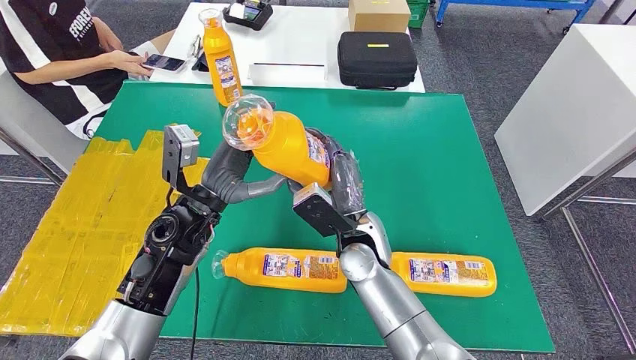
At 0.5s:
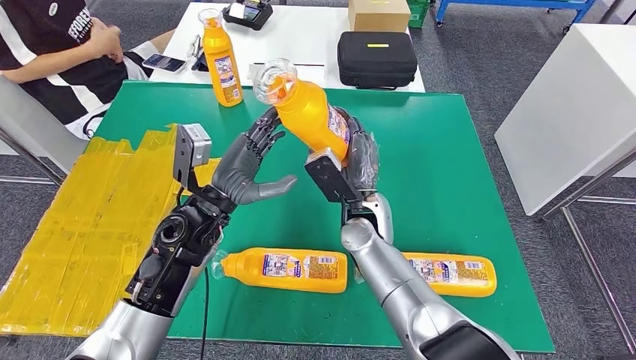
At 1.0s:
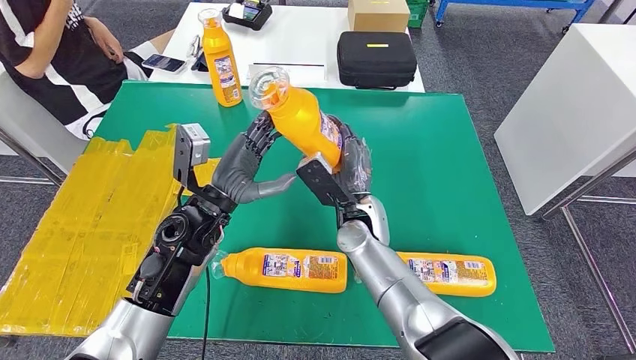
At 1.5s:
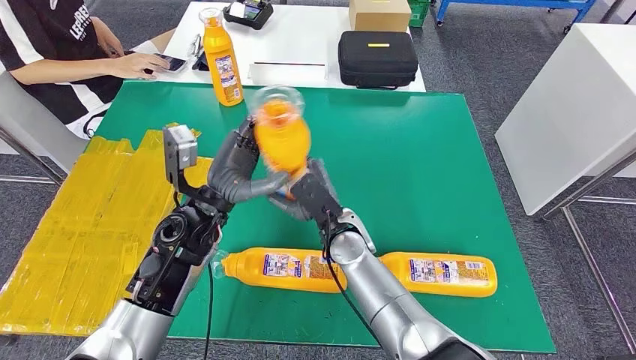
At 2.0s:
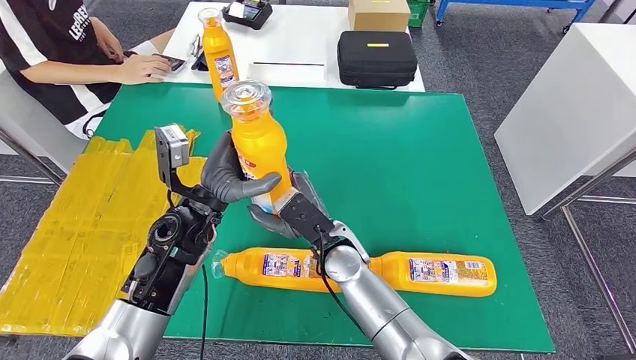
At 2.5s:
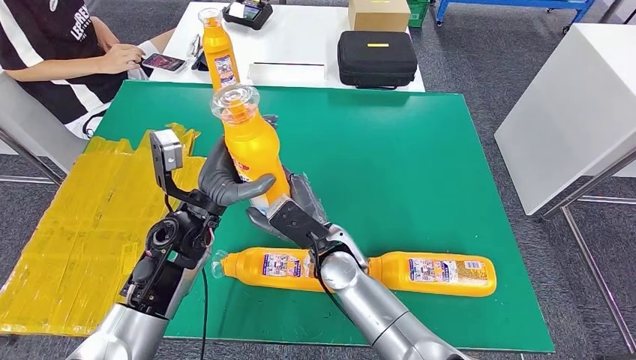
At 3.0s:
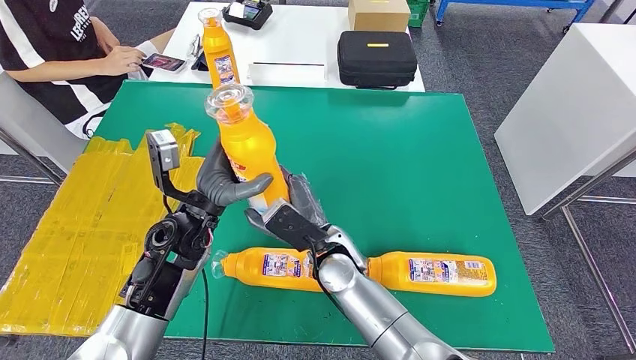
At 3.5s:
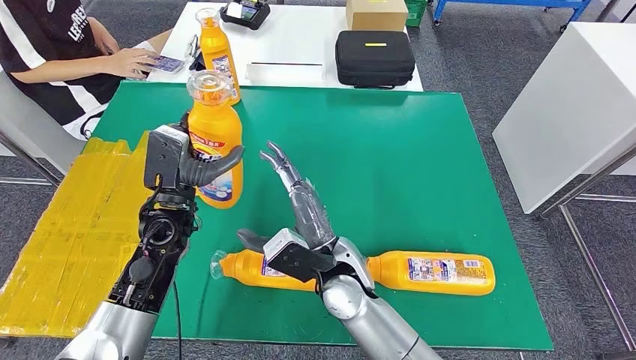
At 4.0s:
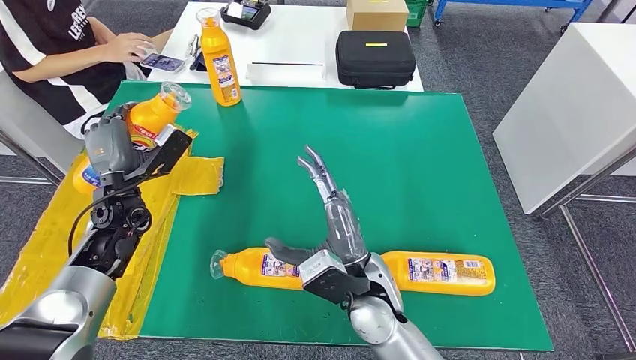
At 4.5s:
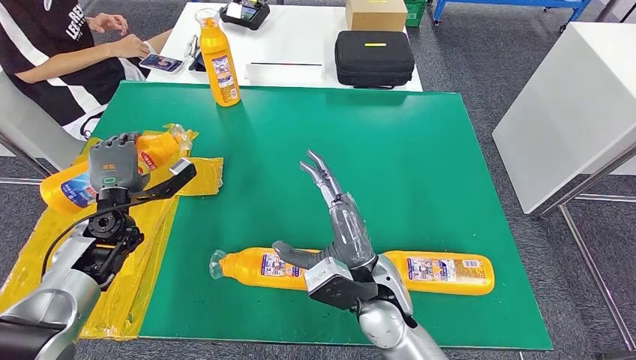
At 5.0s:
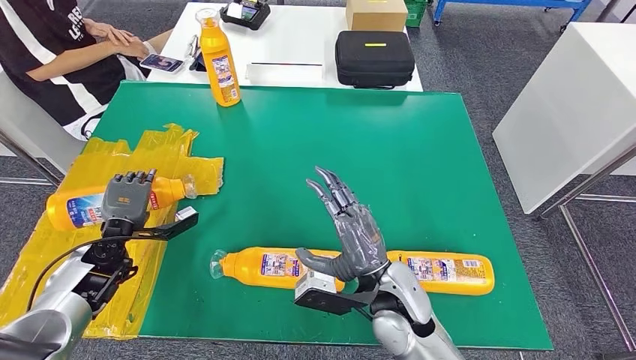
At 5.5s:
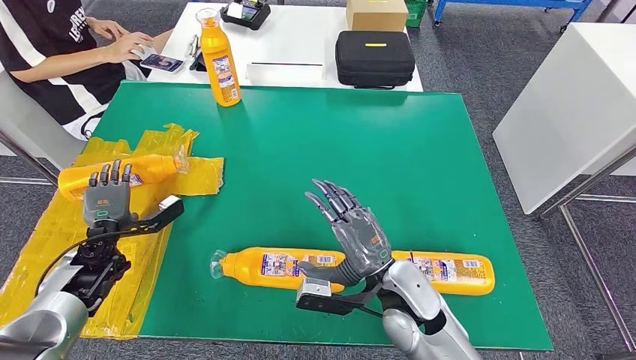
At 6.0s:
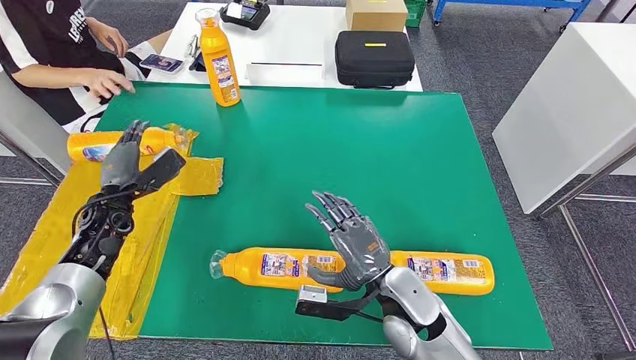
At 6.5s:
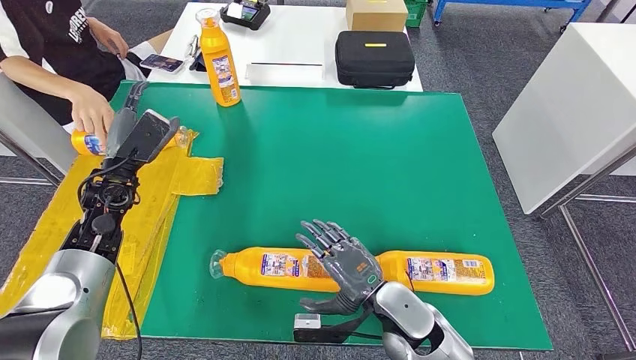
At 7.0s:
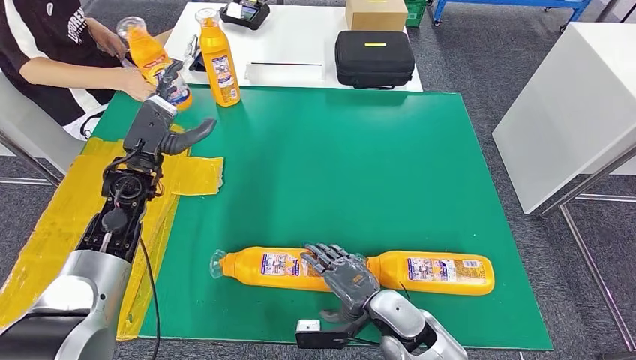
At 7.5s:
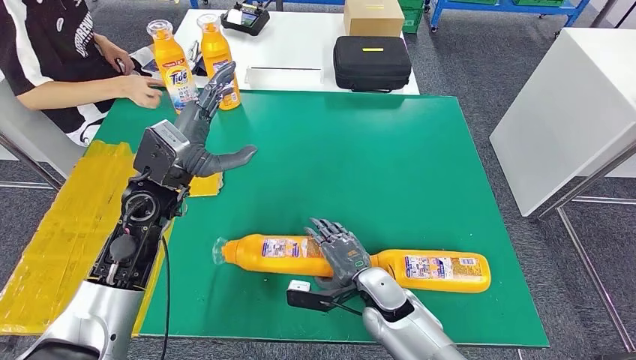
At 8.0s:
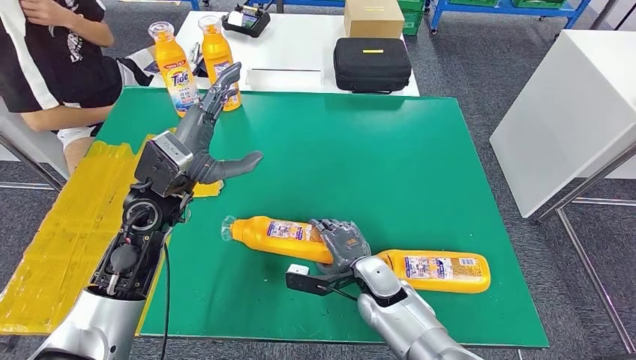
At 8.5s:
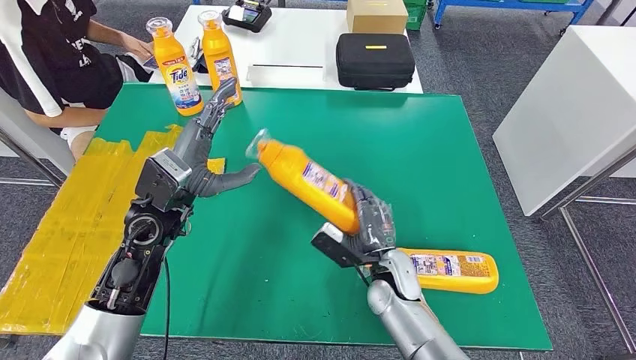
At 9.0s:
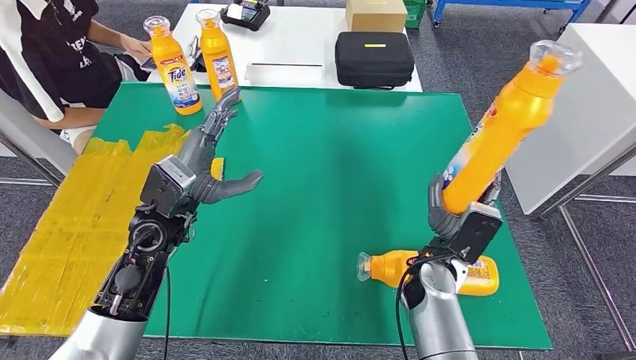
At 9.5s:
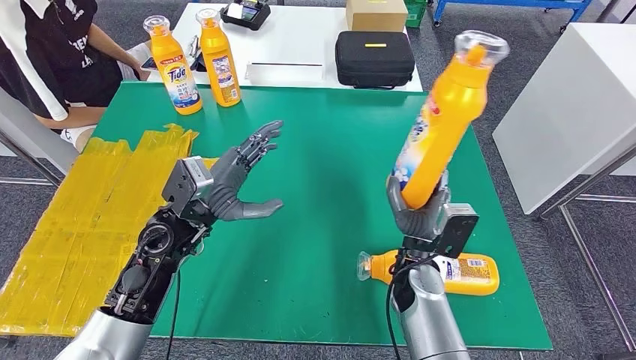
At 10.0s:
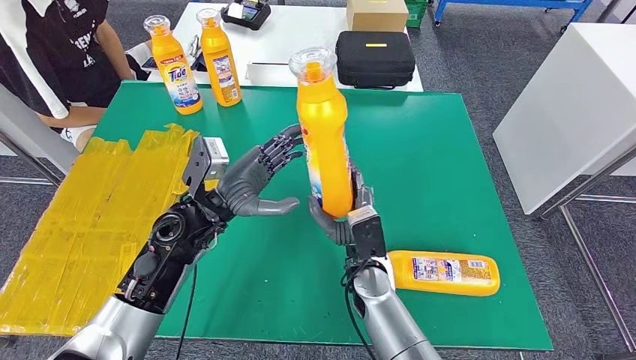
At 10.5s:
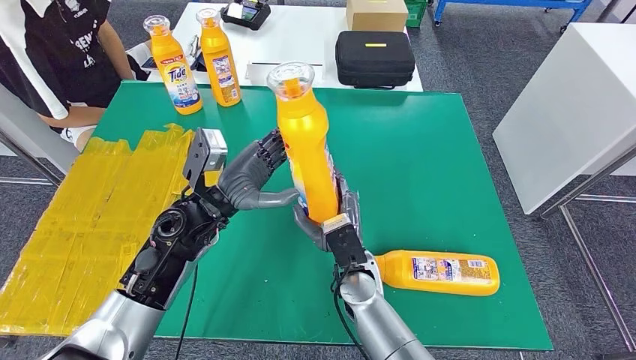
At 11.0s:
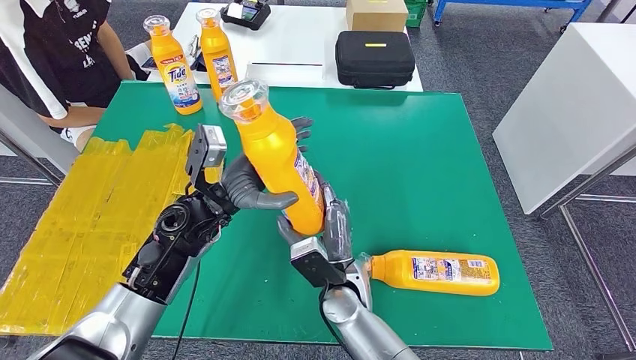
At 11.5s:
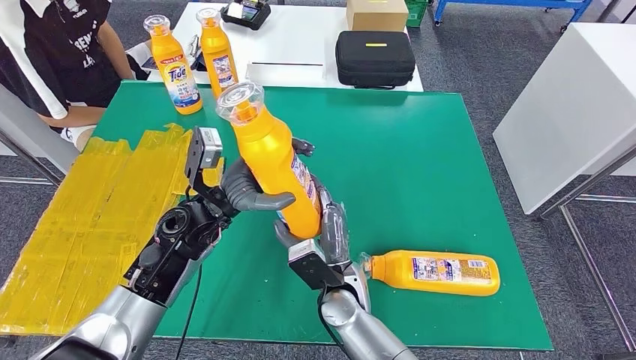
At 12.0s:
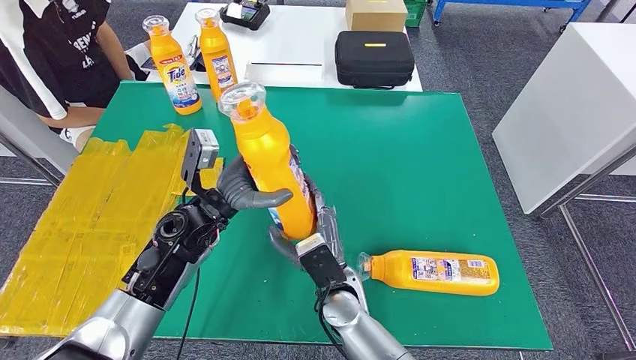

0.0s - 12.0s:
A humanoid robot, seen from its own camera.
Step, 0.5s - 5.0s: Flip the fast-moving consumer goods bottle to the front side.
Step, 8.0s - 9.5s: Pick up the fast-moving consumer goods bottle from the table.
0.0s - 2.0s: The right hand ends up some 5 cm from where it was.
4.0s - 6.0s: The right hand is displaced to the right by some 5 cm.
10.0s - 12.0s: The right hand shifts by roughly 5 cm.

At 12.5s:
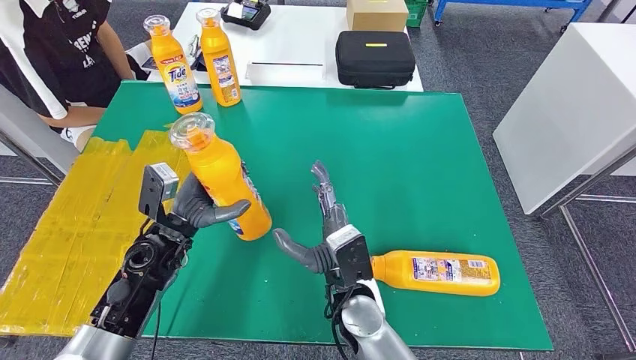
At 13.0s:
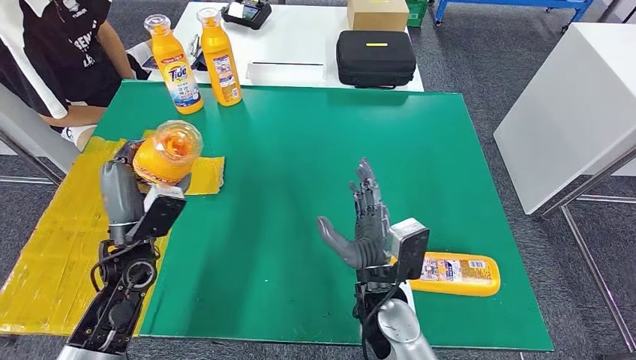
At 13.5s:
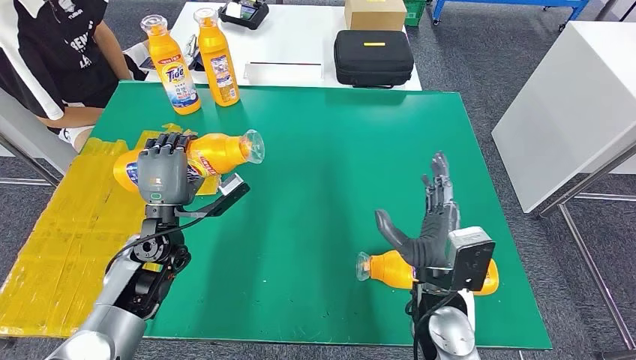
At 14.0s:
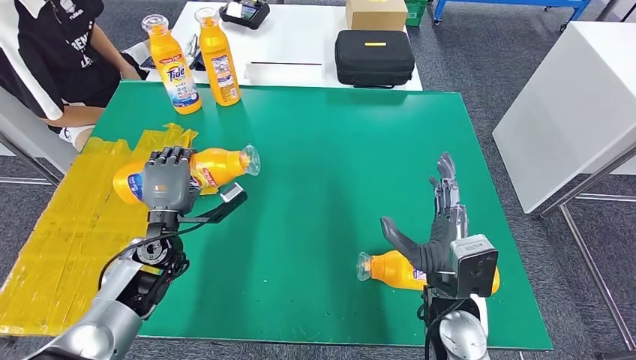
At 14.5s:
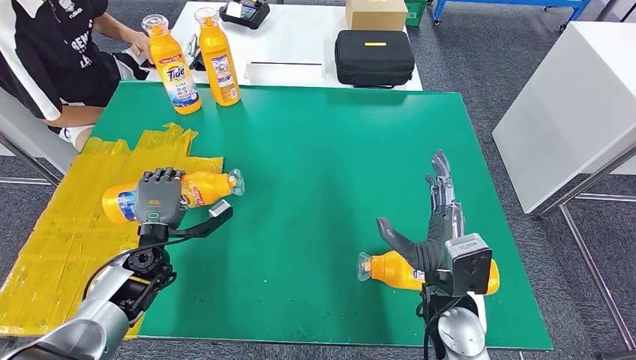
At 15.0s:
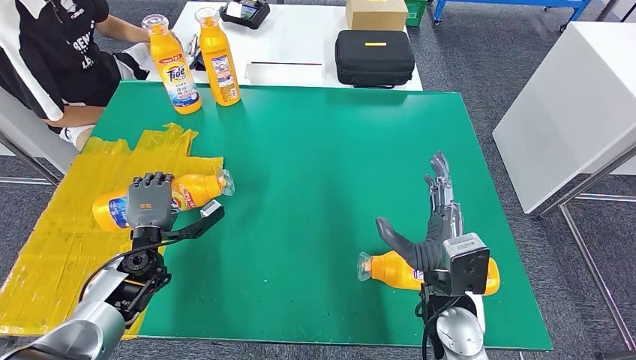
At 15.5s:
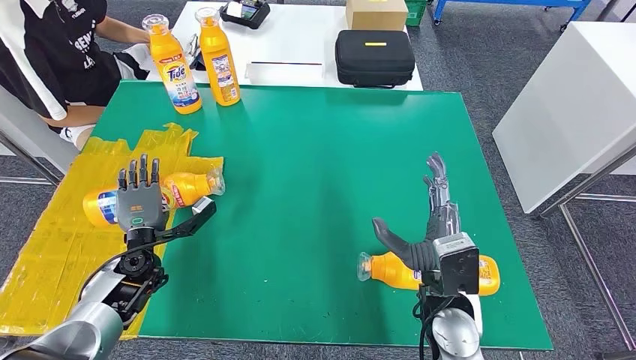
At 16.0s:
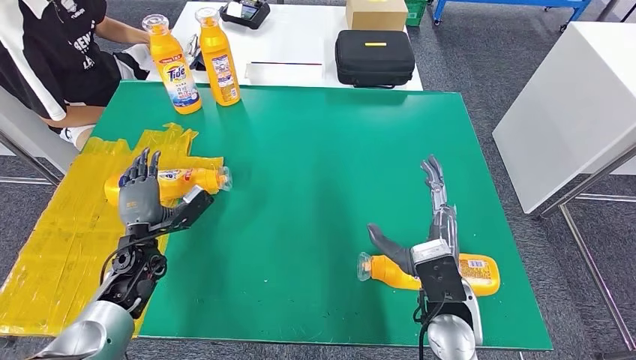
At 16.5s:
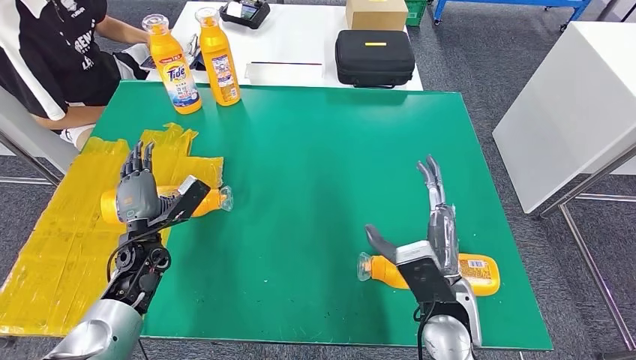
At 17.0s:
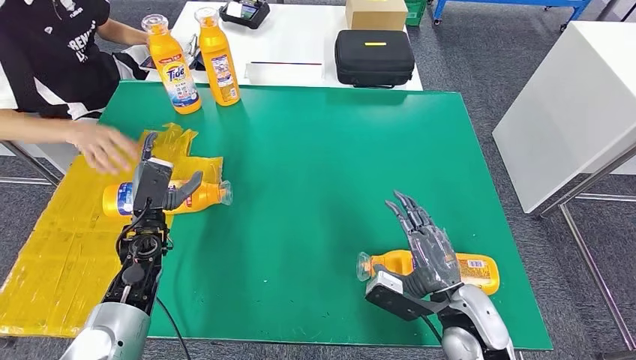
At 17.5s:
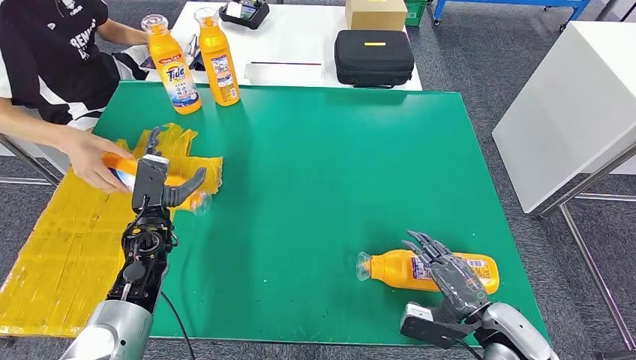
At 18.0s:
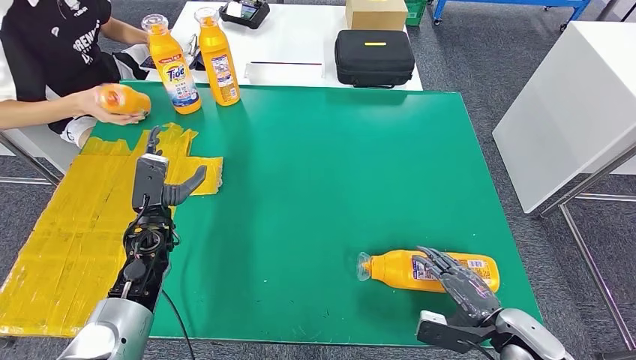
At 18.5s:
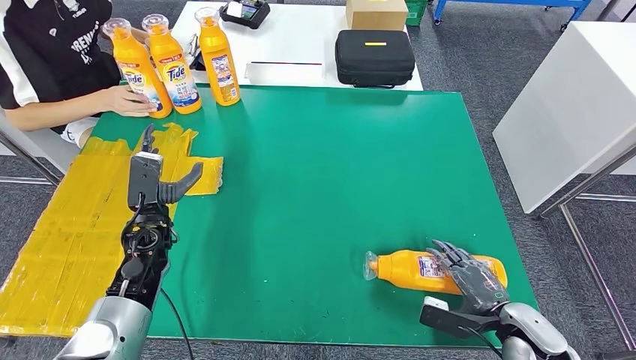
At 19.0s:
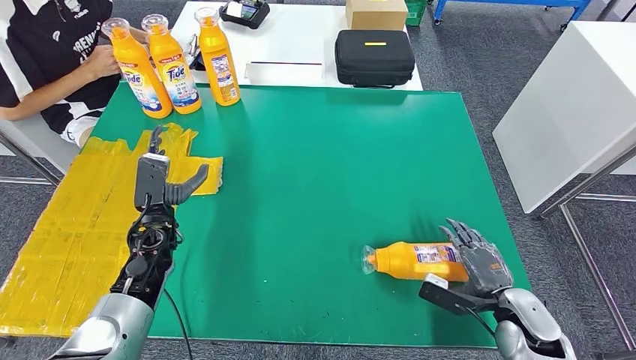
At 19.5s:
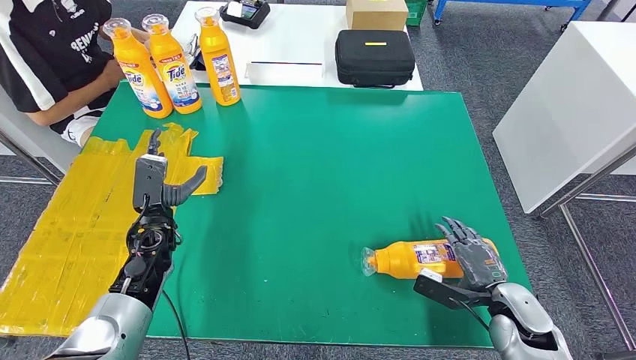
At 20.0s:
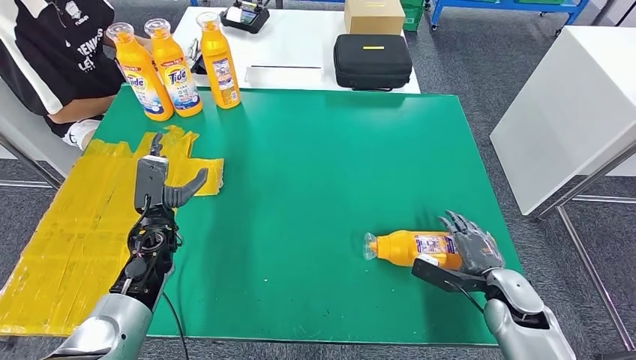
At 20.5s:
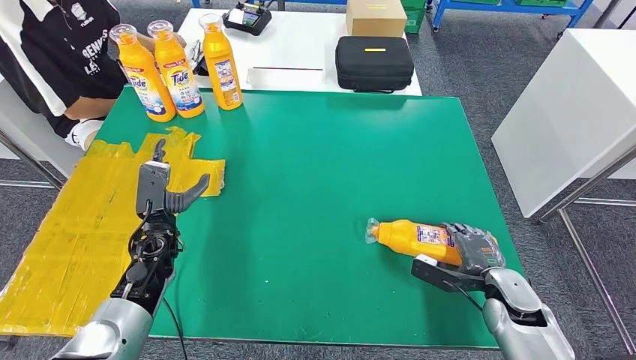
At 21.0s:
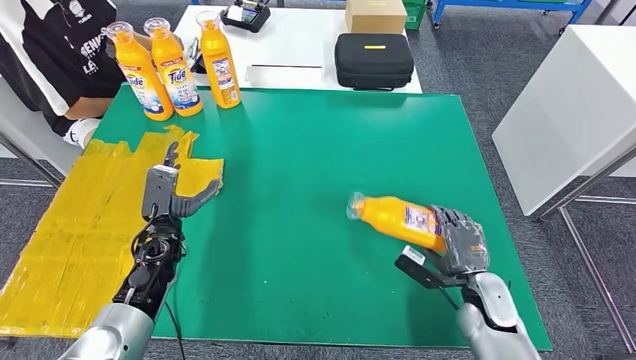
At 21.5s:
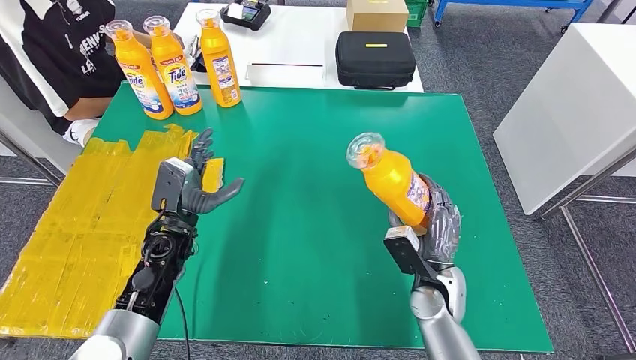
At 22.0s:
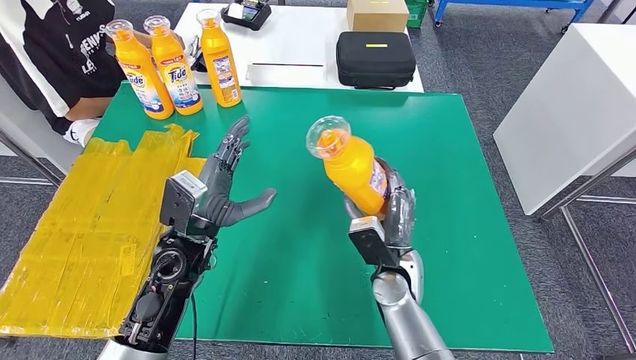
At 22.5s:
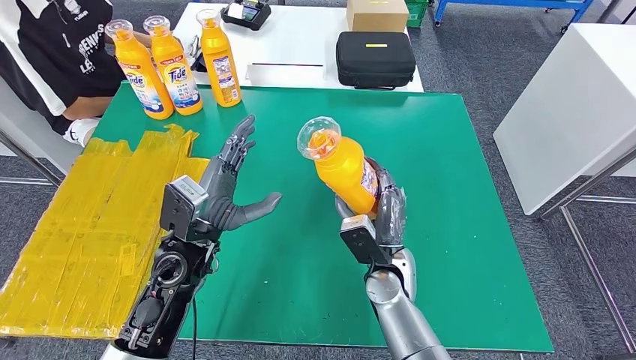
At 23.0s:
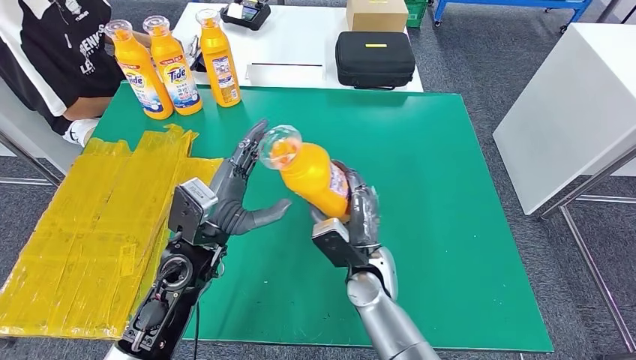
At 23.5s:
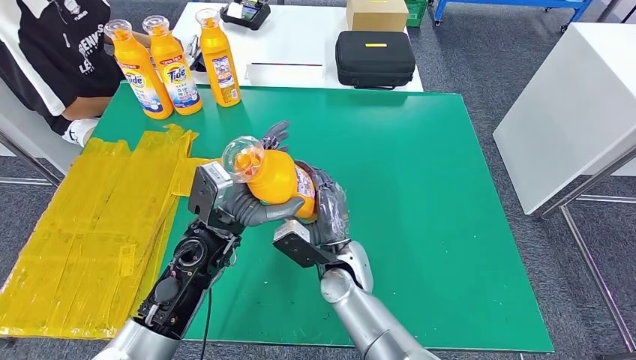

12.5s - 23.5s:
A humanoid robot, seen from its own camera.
Step, 12.5s - 16.5s: Flip the fast-moving consumer goods bottle to the front side.
Step, 18.5s - 22.0s: Pick up the fast-moving consumer goods bottle from the table.
16.0s - 18.0s: The right hand moves to the right, roughly 15 cm, while the left hand shifts by about 5 cm.
